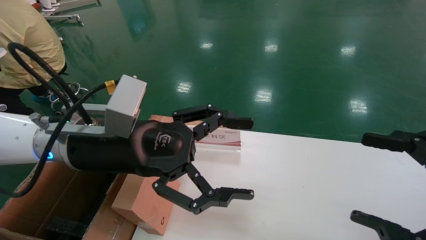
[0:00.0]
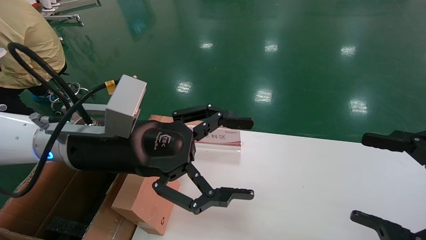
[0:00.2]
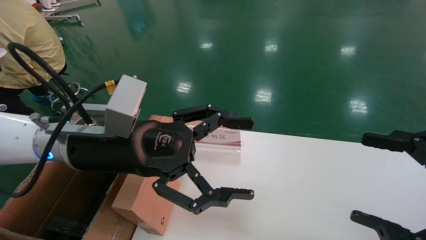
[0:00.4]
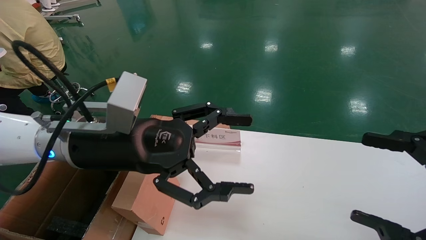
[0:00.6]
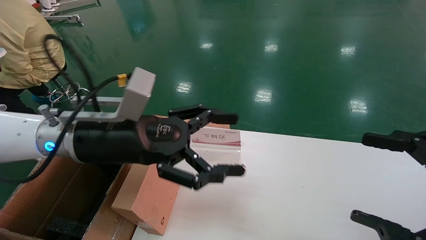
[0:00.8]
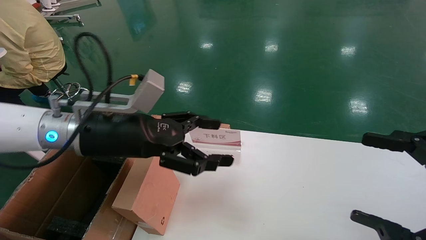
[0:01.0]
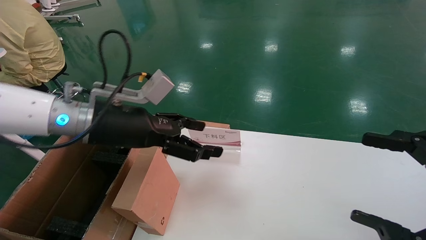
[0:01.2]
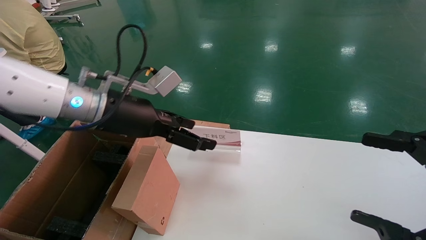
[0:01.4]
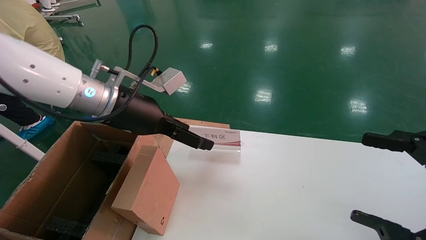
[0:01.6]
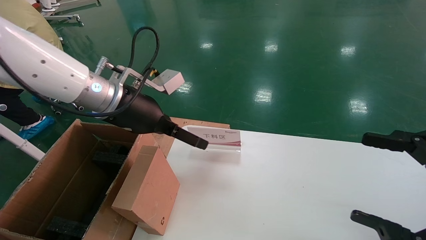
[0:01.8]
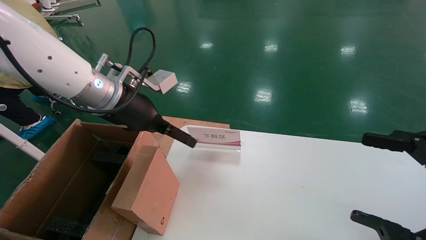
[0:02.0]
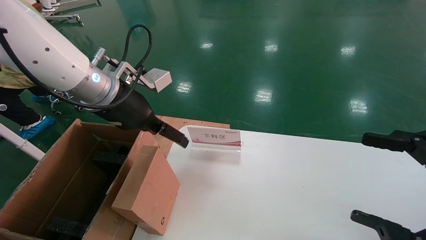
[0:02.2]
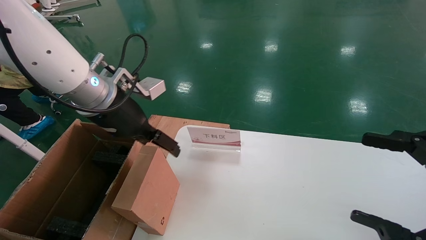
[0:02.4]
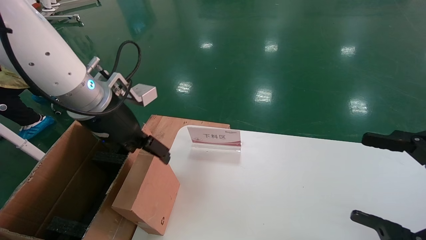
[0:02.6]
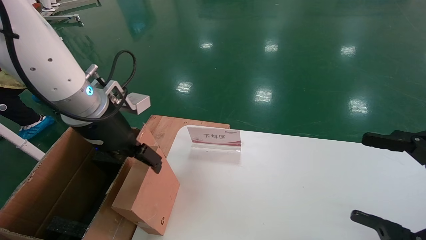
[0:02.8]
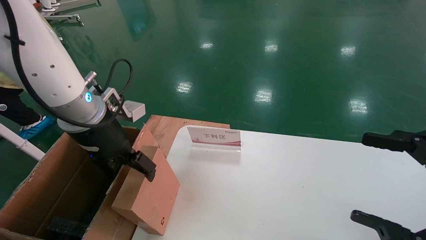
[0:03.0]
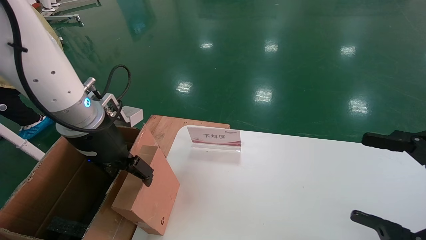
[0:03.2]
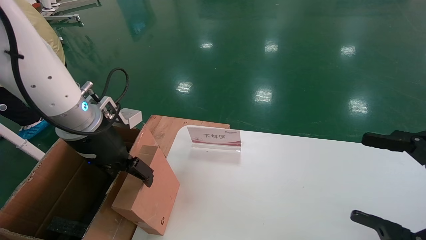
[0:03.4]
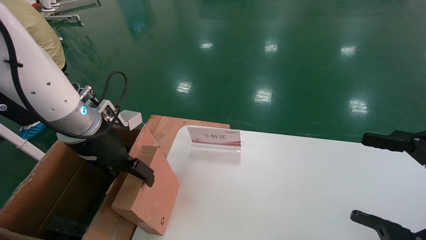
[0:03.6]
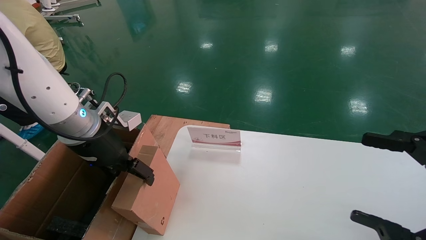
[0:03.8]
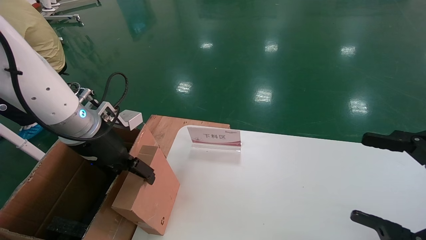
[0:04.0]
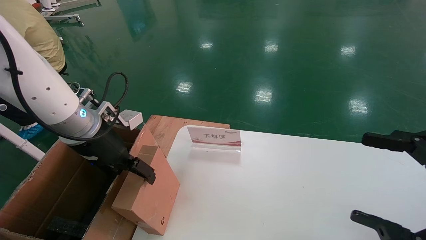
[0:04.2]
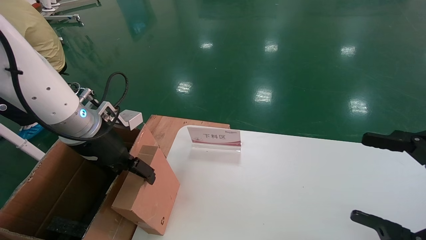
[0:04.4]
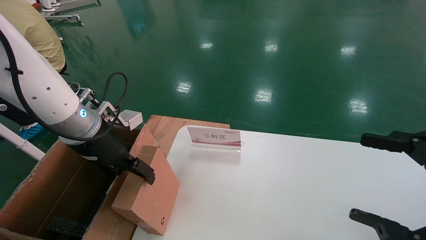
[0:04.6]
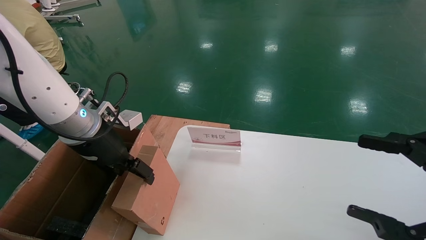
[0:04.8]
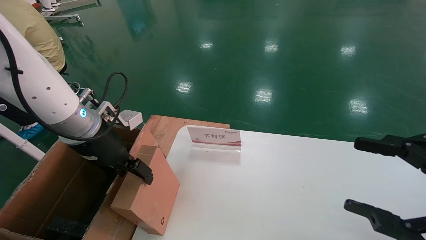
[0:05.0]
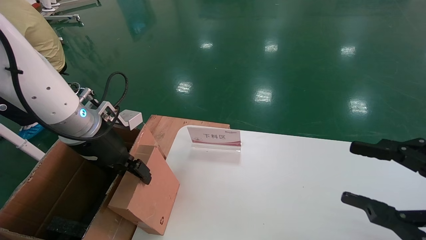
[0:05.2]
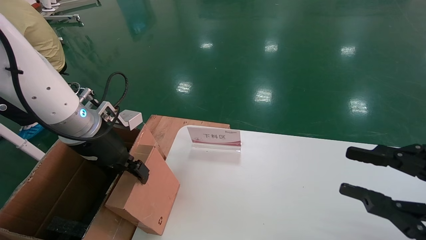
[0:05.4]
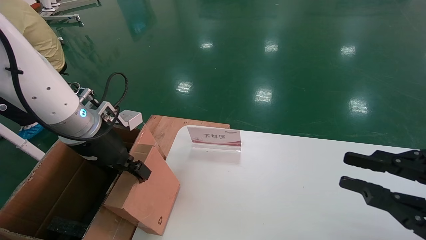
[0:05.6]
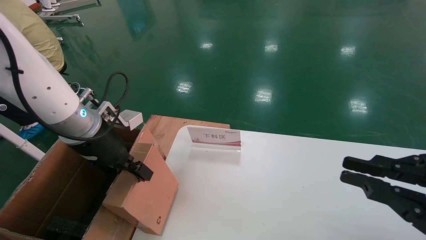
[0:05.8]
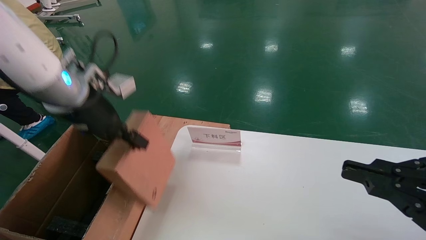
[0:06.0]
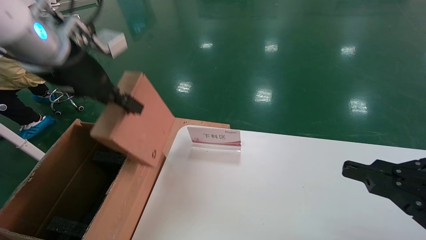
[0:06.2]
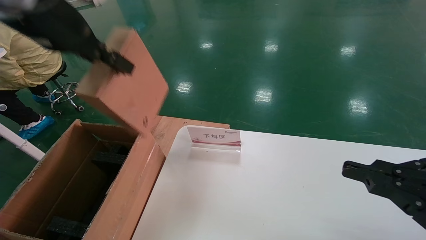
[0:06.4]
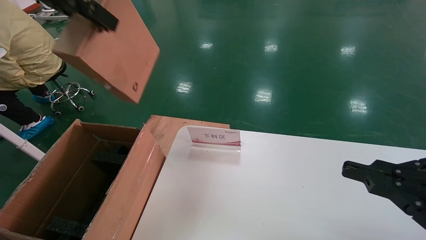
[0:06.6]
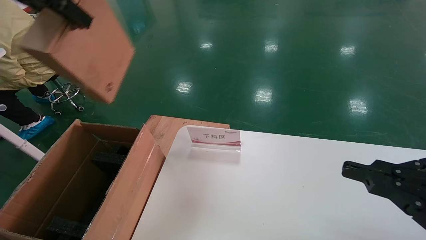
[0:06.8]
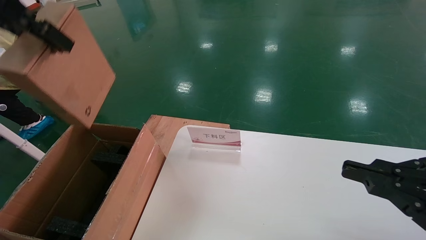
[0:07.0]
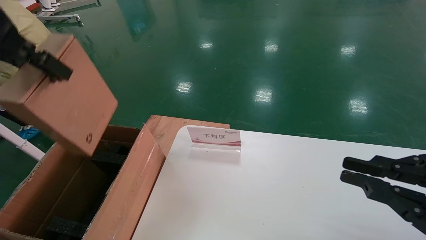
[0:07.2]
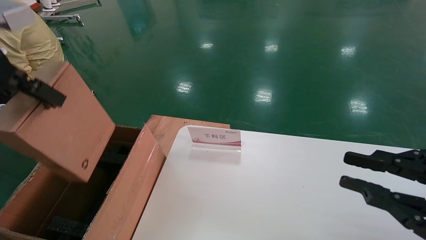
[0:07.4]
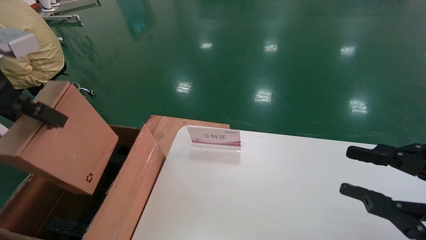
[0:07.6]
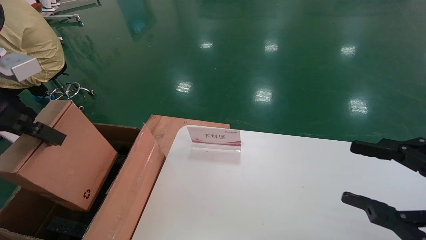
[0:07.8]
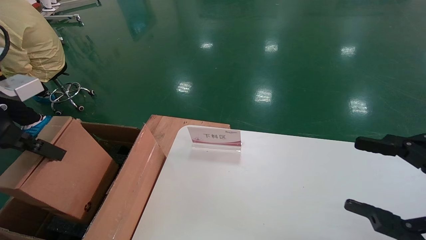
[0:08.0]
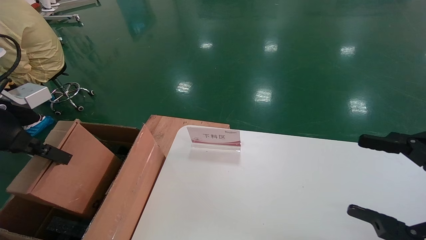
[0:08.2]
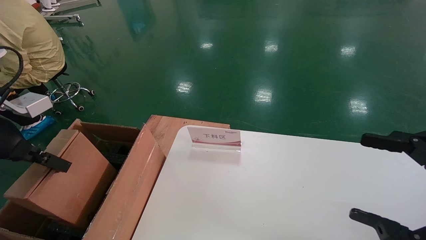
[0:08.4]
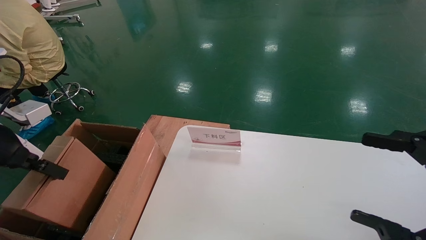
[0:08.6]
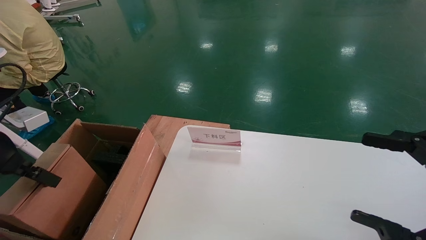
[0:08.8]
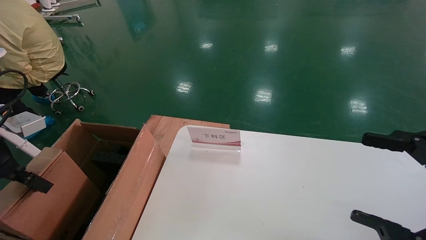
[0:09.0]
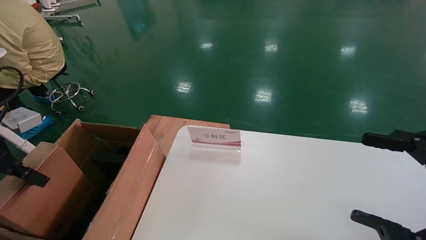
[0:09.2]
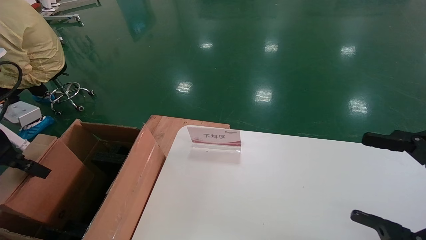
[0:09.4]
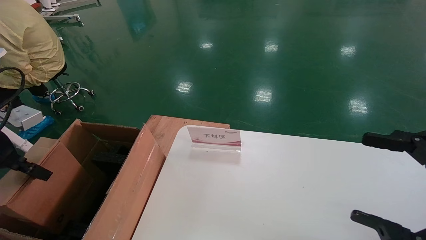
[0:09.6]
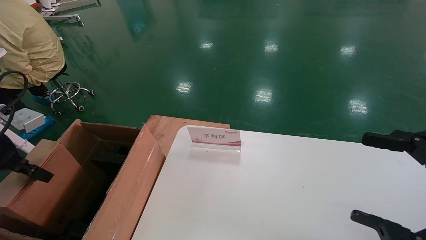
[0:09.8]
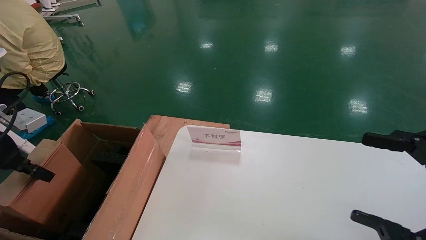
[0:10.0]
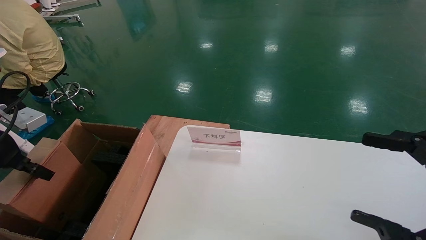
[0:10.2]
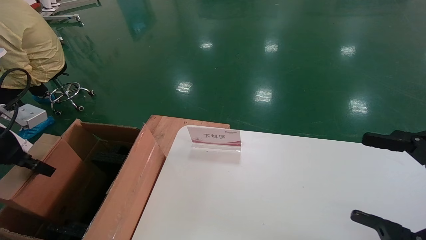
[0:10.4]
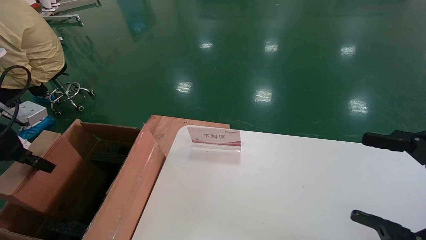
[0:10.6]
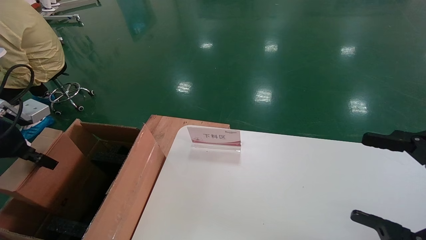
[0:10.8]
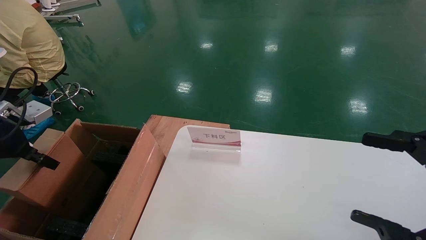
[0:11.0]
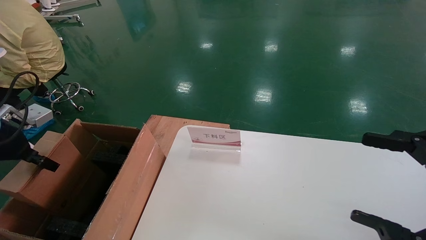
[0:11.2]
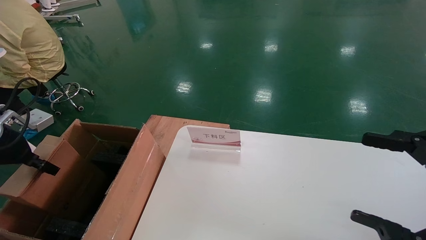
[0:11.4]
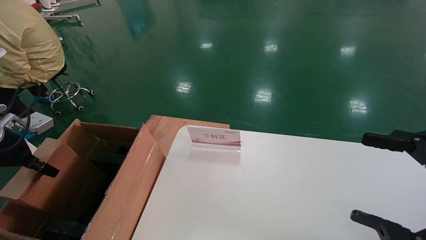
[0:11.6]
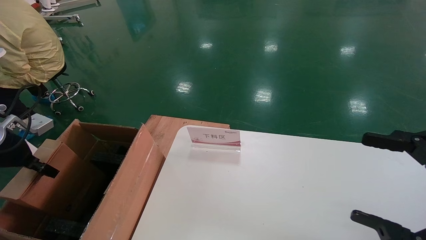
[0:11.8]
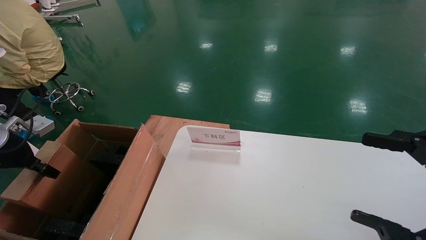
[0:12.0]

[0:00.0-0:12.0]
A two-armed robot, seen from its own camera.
Task of the whole recording: pick up the small cardboard box and load it into the large cardboard box.
Step, 0:01.0 to 0:05.4: Pick up the mouse and power cord box.
0:00.0 to 0:01.6: The left gripper is displaced forward by some 10 cm.
0:03.0 to 0:04.4: The grippers move only a little.
0:04.4 to 0:06.0: The right gripper closes up. The left gripper moves upward, about 10 cm, and closes up.
0:06.0 to 0:07.6: The left gripper travels backward, to the left and upward by approximately 15 cm.
0:07.6 to 0:09.0: The left gripper moves downward and to the left, some 15 cm. The right gripper opens.
0:09.0 to 0:10.4: The grippers stay close to where they were, moving slightly.
0:10.4 to 0:12.0: The left gripper shifts some 5 cm downward.

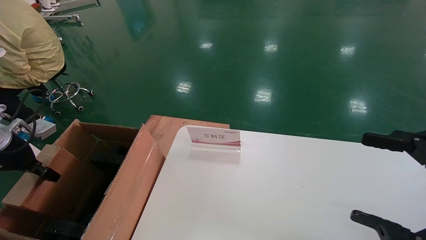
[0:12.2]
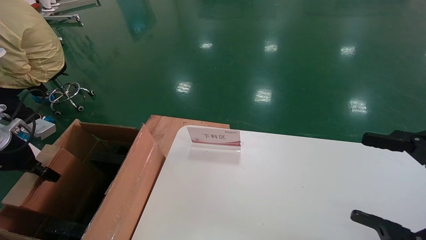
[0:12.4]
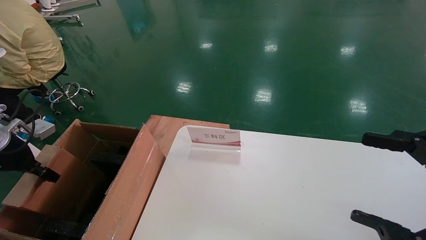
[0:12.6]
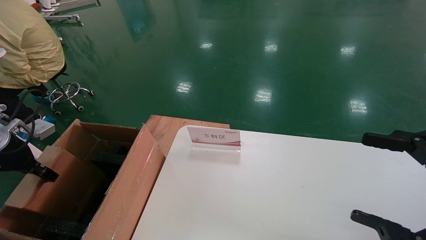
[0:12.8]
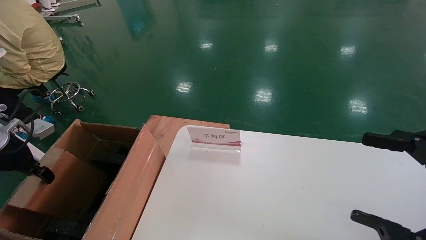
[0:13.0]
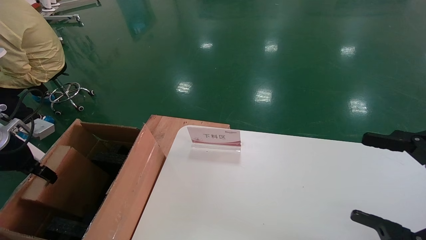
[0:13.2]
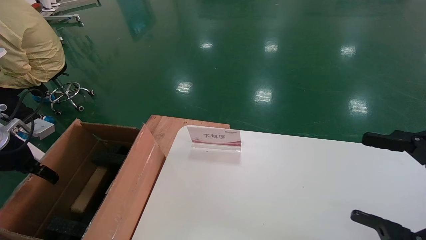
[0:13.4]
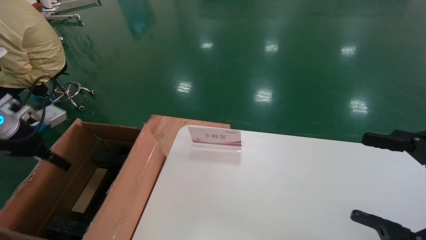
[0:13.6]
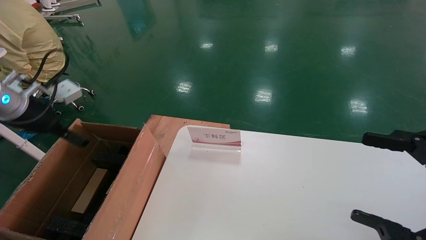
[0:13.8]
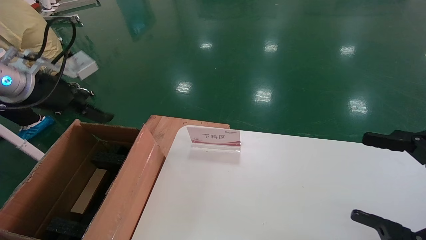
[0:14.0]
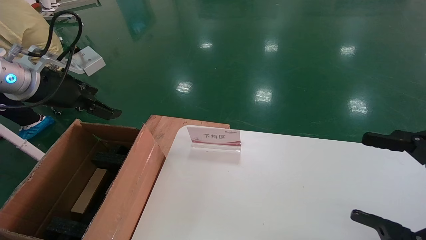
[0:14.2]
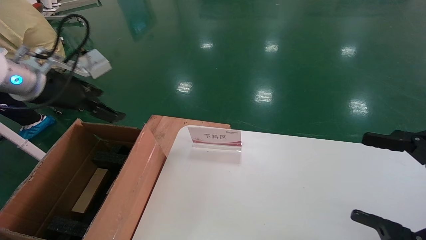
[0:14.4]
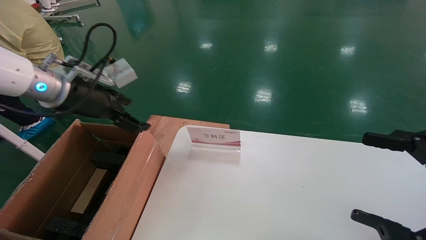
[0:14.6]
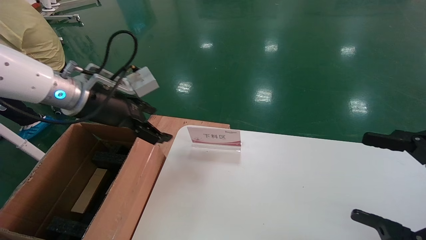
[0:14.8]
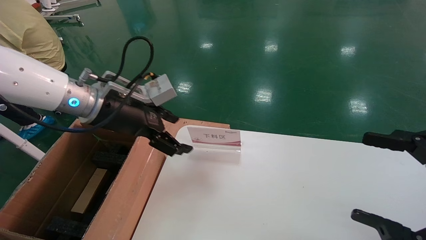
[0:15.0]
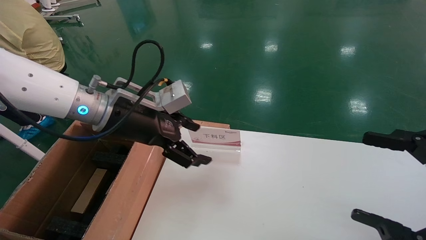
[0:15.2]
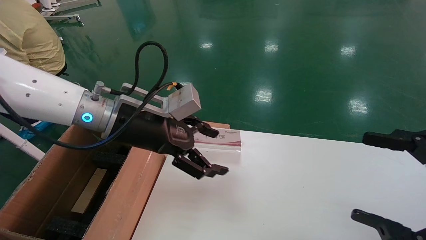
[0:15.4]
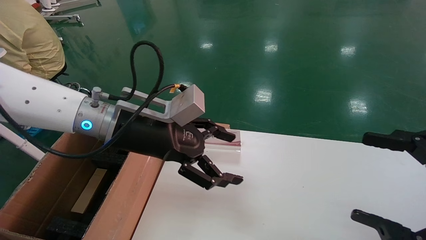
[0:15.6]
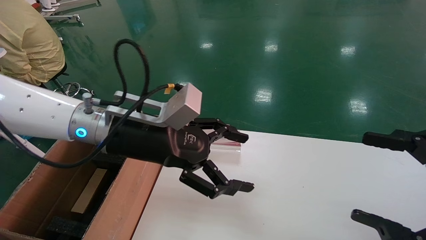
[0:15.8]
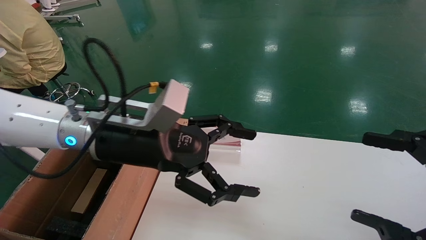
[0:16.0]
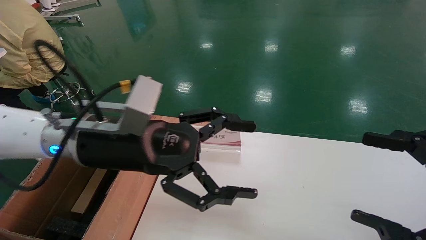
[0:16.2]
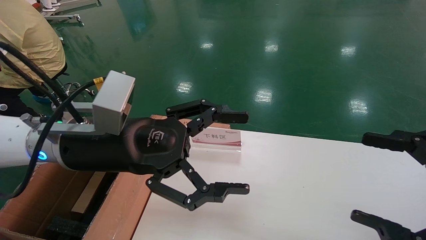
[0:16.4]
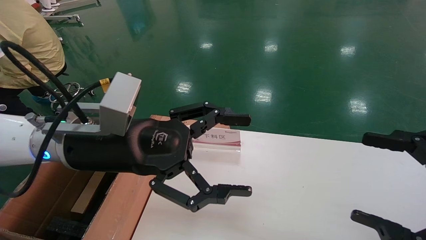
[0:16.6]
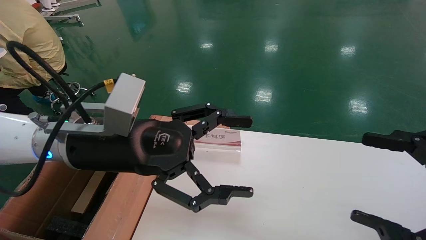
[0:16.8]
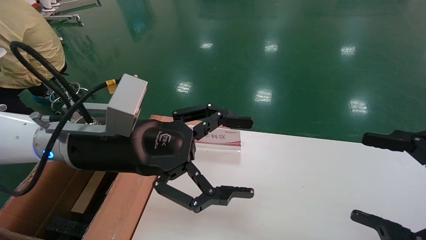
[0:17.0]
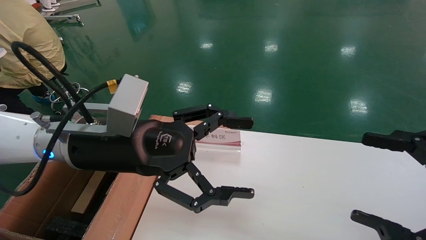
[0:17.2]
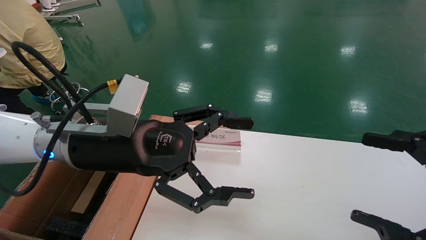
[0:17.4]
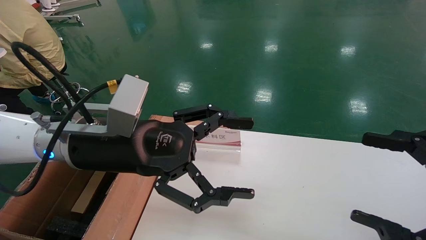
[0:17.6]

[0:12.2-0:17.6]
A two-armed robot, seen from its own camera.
Task of the whole recording: pick up the small cardboard box and load it into the large cardboard box.
0:12.2 to 0:13.6: The left gripper shifts by approximately 5 cm, and opens.
0:13.6 to 0:15.0: The left gripper heads to the right, covering about 20 cm.
0:15.0 to 0:16.2: The left gripper is displaced backward and to the right by roughly 10 cm.
0:16.2 to 0:17.6: Both grippers stay put.
